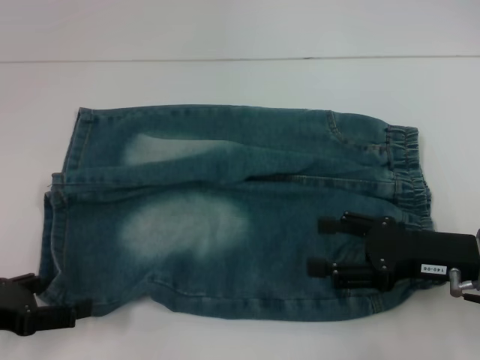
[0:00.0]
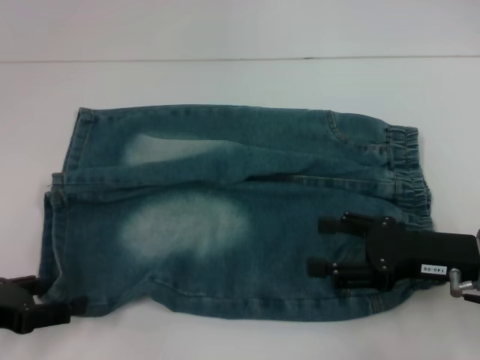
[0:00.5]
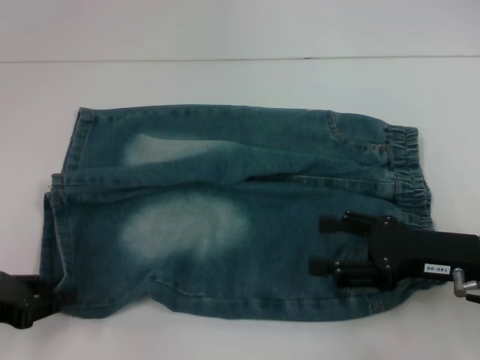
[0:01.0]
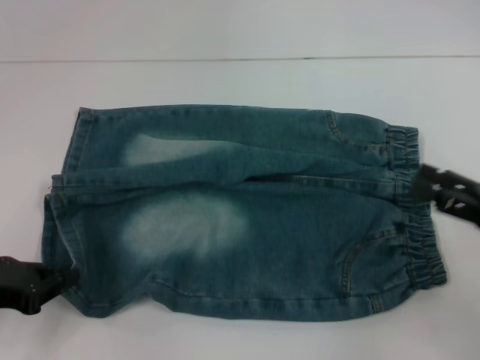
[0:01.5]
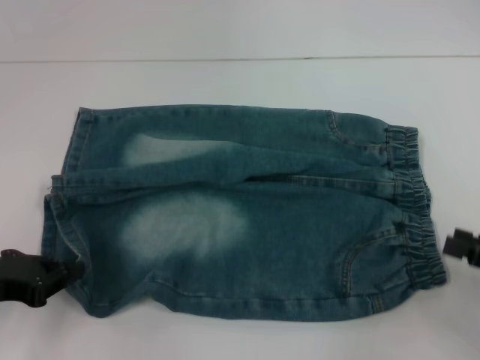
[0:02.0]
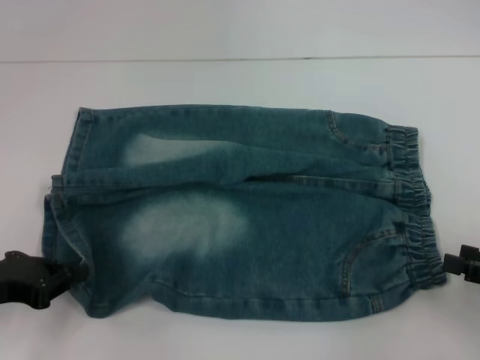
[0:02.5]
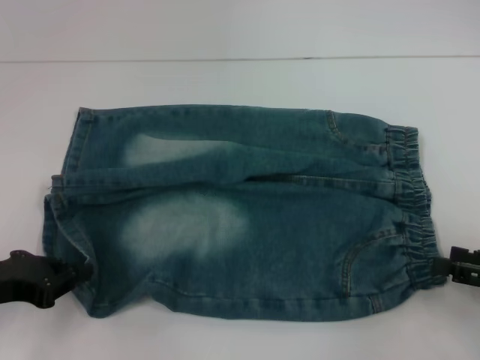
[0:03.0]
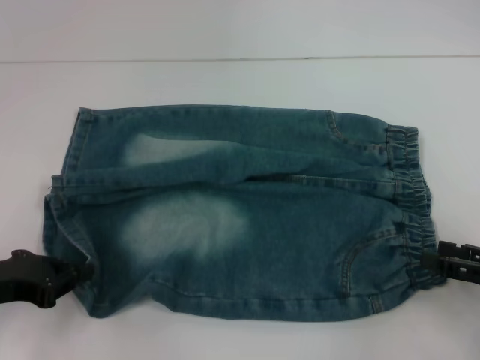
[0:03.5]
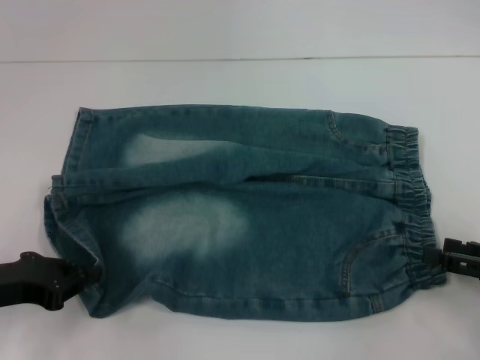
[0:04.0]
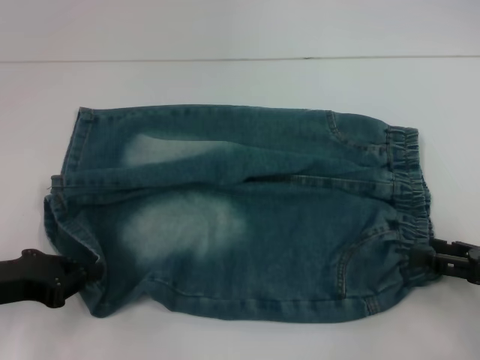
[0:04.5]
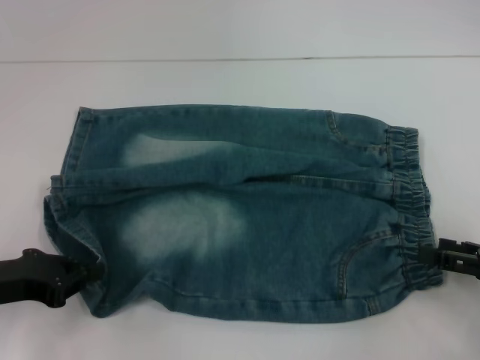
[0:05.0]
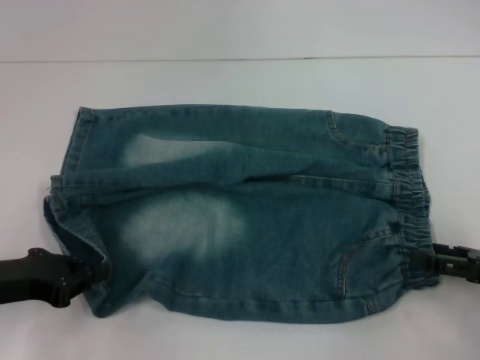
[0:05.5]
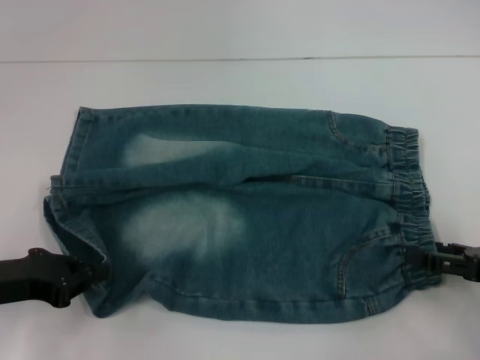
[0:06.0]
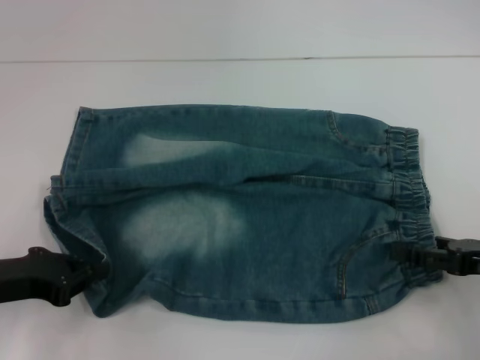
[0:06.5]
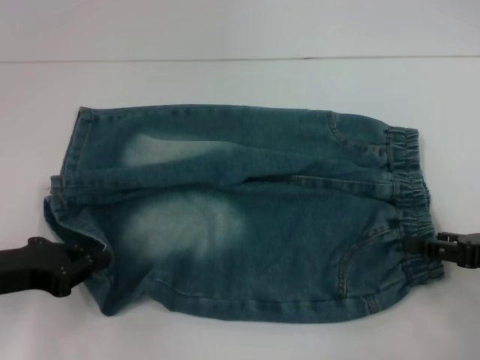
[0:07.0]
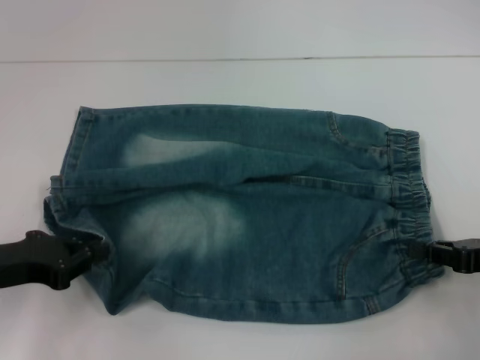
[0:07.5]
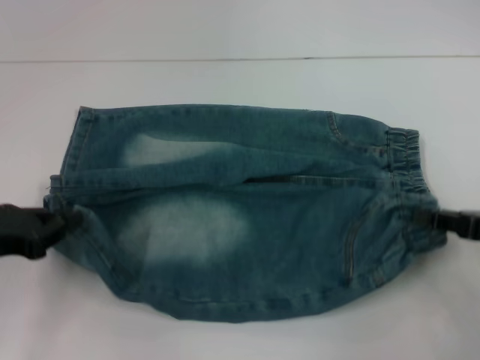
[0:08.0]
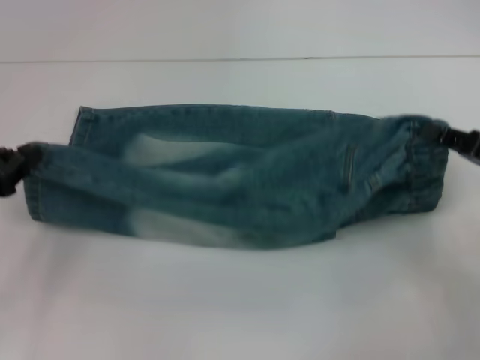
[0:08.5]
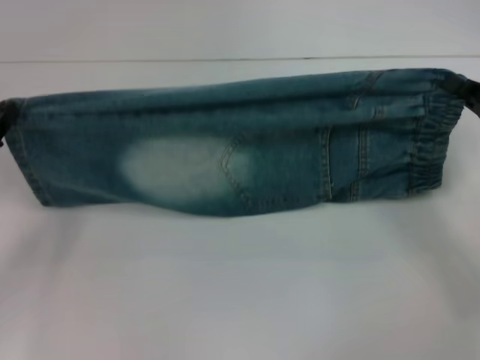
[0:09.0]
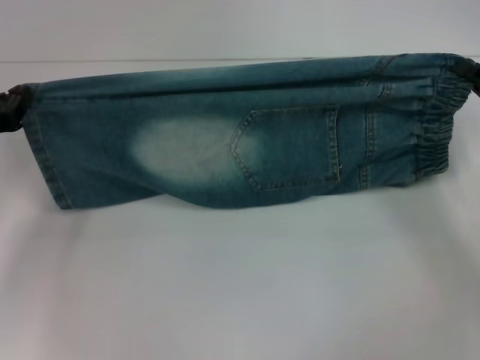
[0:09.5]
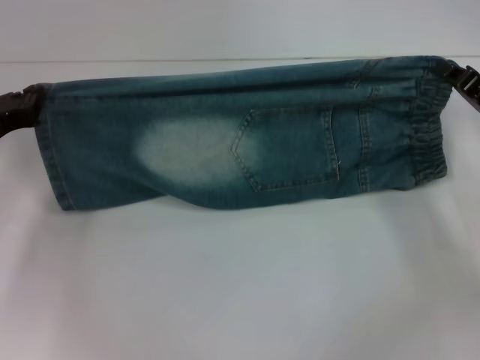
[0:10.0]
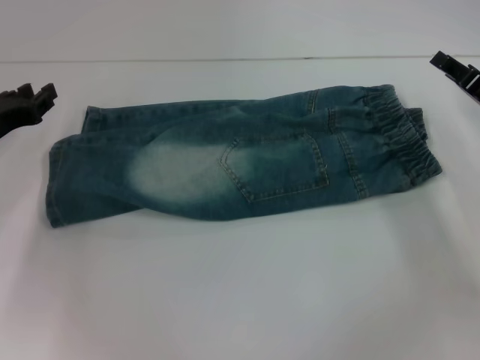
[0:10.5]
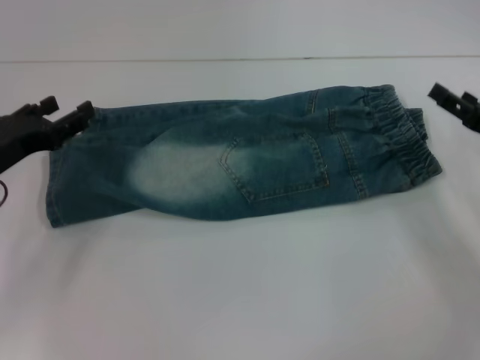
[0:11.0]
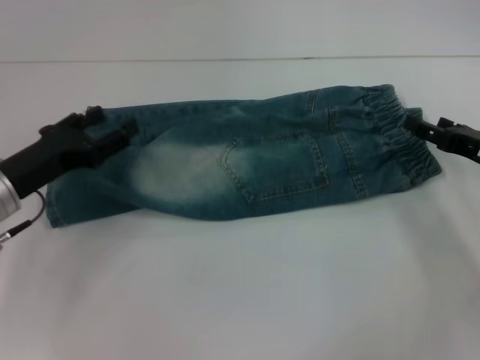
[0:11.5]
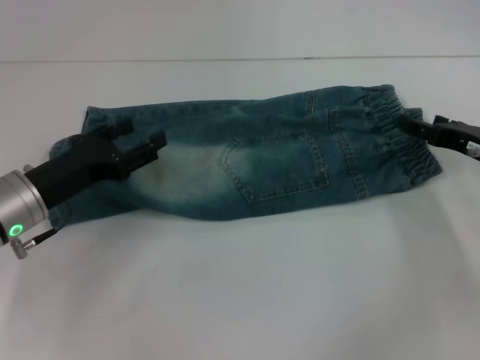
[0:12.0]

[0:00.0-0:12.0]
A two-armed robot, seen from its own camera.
Step, 0:01.5 to 0:07.5: Hold the lower right waistband with your right hand.
Step, 0:08.0 to 0:10.5: Fold upward with your right hand.
0:00.0 to 0:02.0: The right gripper travels to the right and backward by roughly 15 cm, while the left gripper closes its fingers.
0:02.0 to 0:06.0: The grippers move only a little.
0:06.0 to 0:08.0: The right gripper closes up.
0:08.0 to 0:10.0: The two grippers go approximately 10 cm forward.
0:10.0 to 0:12.0: The left gripper goes approximately 5 cm to the right, and opens up; the right gripper opens up.

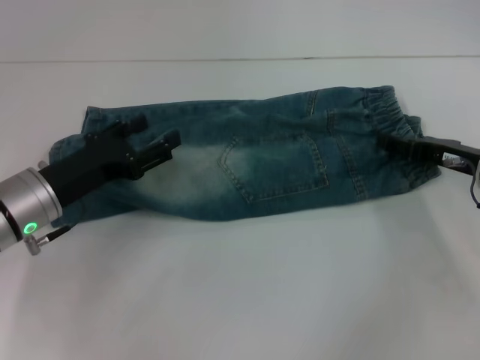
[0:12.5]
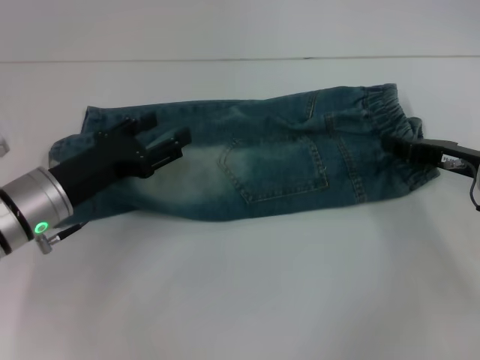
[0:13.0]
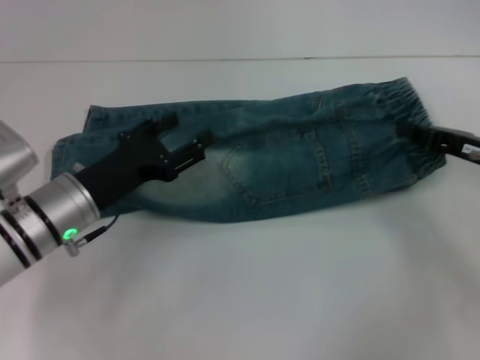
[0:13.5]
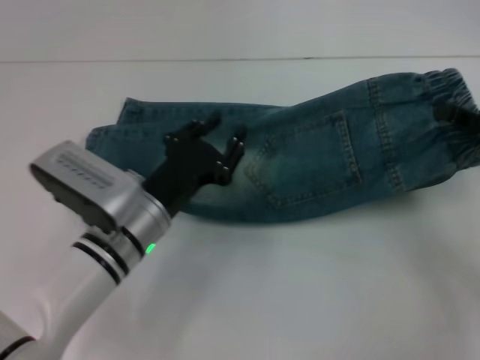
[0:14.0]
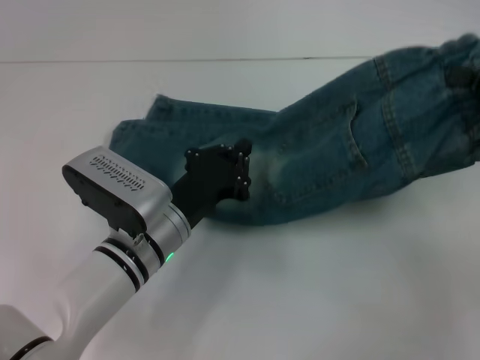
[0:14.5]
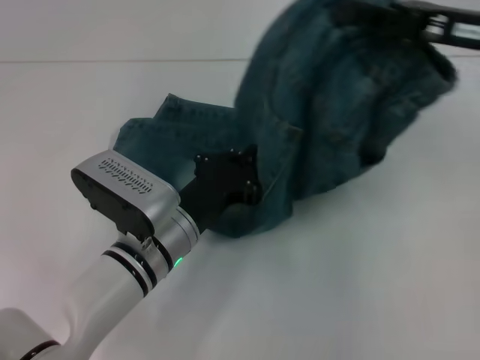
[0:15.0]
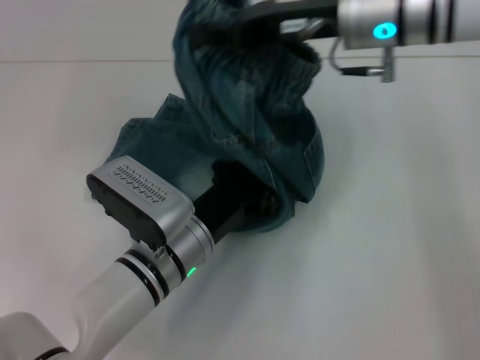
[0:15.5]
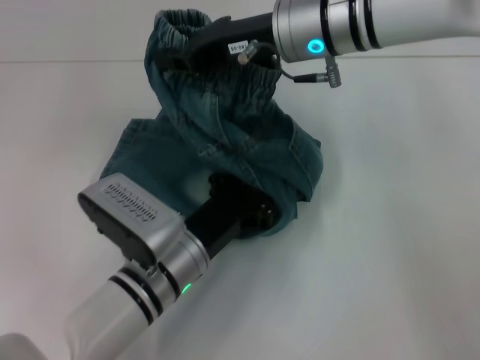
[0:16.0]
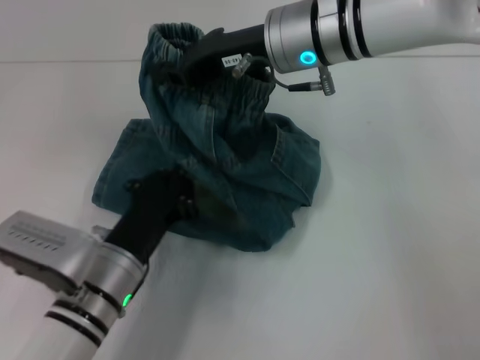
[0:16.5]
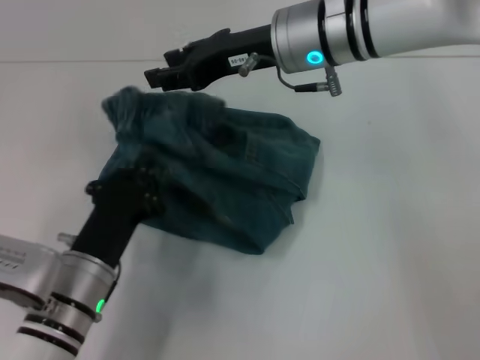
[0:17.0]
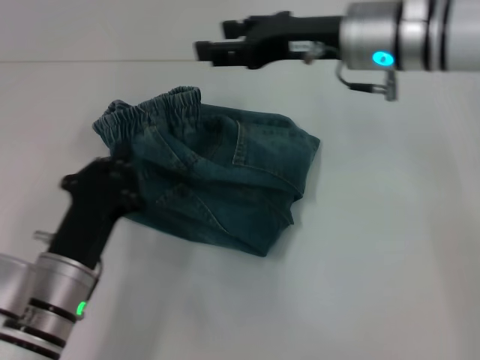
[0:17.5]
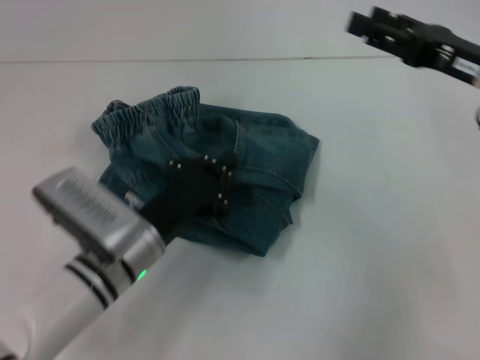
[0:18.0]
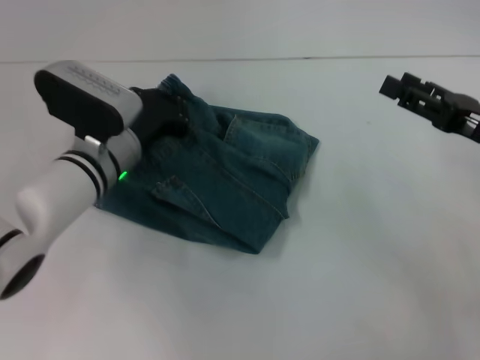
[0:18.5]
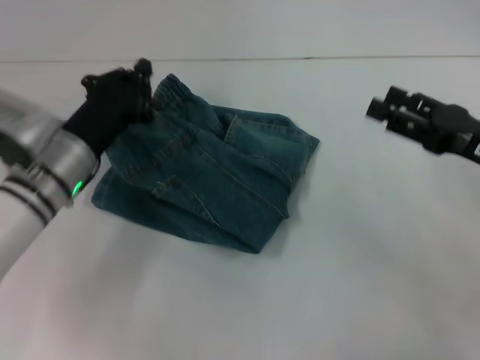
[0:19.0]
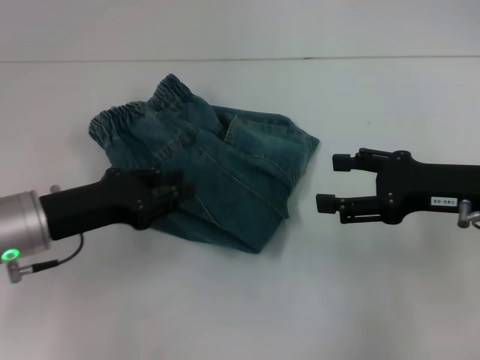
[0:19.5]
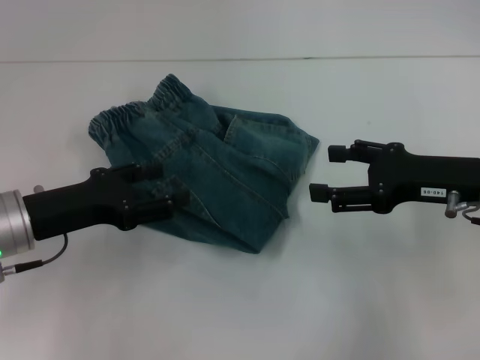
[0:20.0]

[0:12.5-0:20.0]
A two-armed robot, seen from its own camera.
Step, 0:13.5 to 0:16.0: Press the middle of the pants with your left hand.
Step, 0:16.5 to 0:17.5: Fold to the left with your right hand.
0:12.5 to 0:14.5: The left gripper goes about 15 cm to the right, and closes up, while the right gripper travels upward and to the right by about 10 cm, and closes up.
0:14.5 to 0:16.5: The left gripper changes place by roughly 5 cm. Meanwhile the right gripper moves to the left and forward, some 30 cm.
0:16.5 to 0:18.0: The right gripper is displaced to the right by roughly 20 cm, and opens up.
0:18.0 to 0:20.0: The right gripper shifts by roughly 5 cm, while the left gripper shifts approximately 15 cm to the left and upward, and opens.
